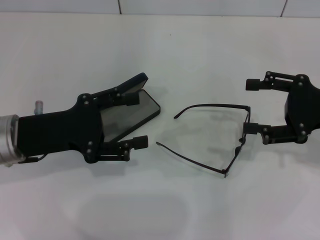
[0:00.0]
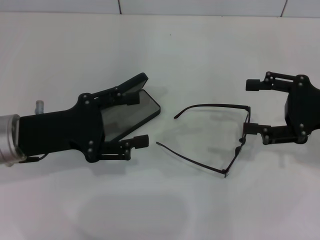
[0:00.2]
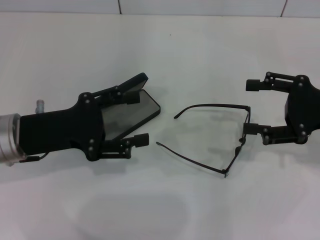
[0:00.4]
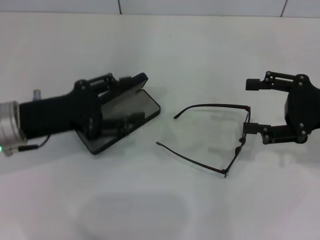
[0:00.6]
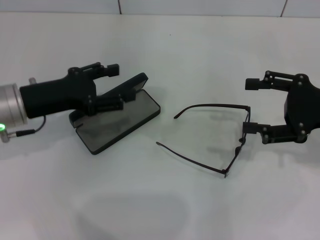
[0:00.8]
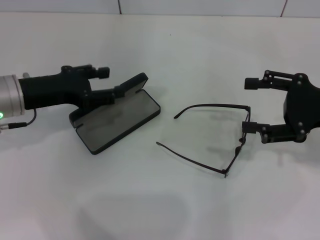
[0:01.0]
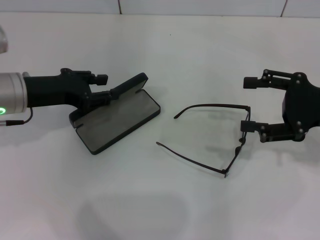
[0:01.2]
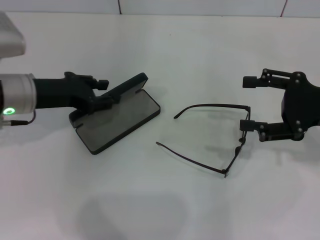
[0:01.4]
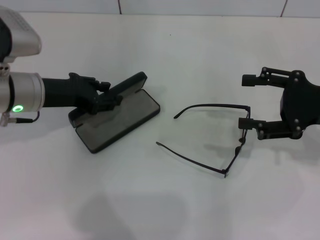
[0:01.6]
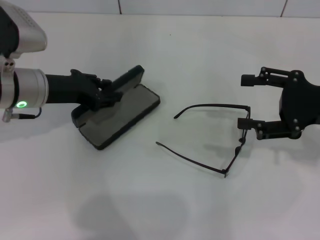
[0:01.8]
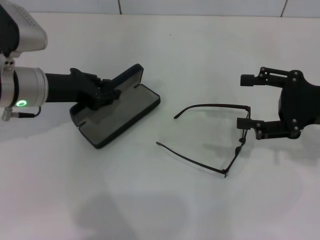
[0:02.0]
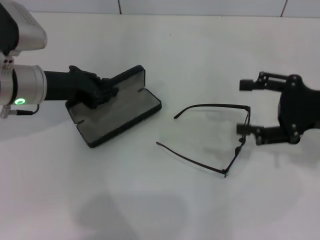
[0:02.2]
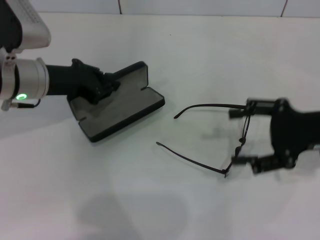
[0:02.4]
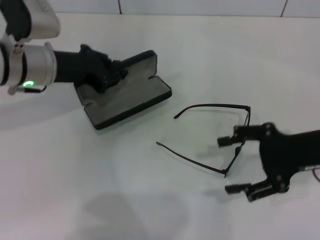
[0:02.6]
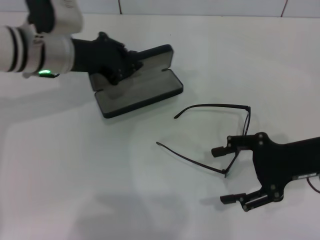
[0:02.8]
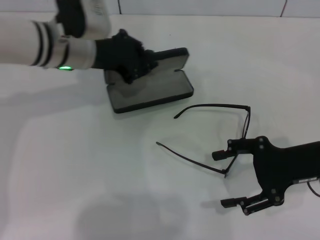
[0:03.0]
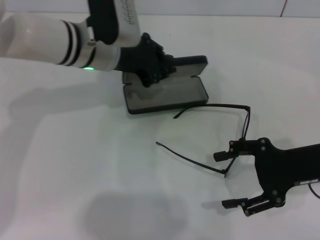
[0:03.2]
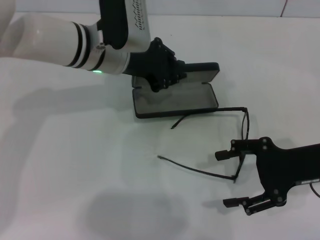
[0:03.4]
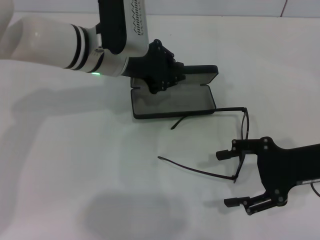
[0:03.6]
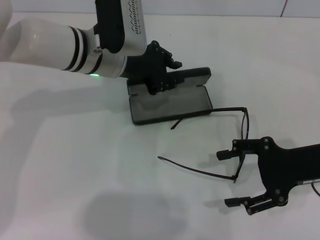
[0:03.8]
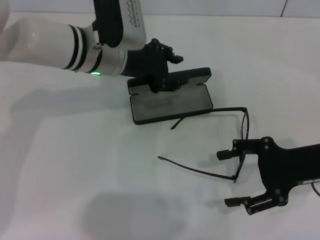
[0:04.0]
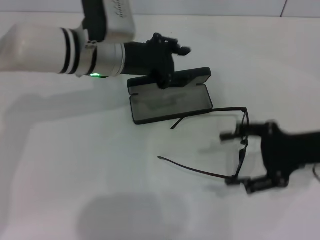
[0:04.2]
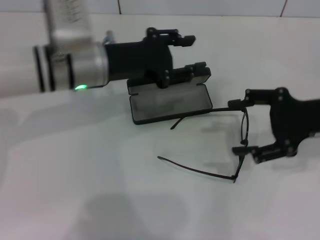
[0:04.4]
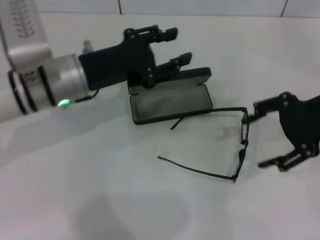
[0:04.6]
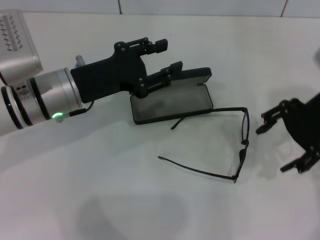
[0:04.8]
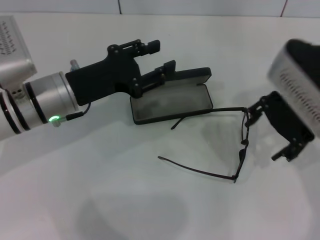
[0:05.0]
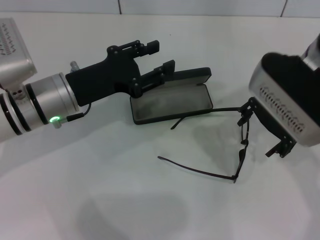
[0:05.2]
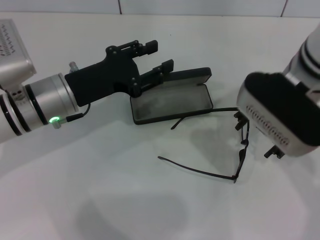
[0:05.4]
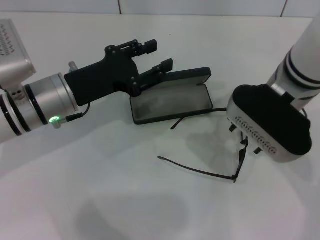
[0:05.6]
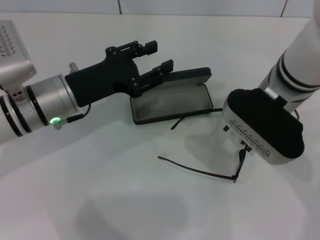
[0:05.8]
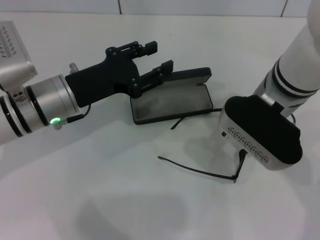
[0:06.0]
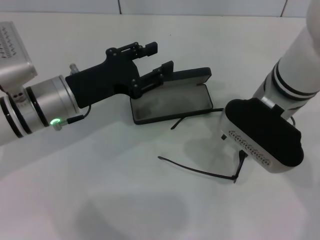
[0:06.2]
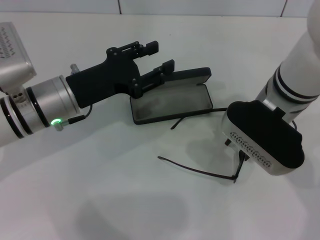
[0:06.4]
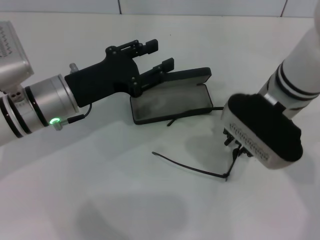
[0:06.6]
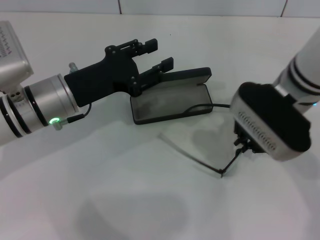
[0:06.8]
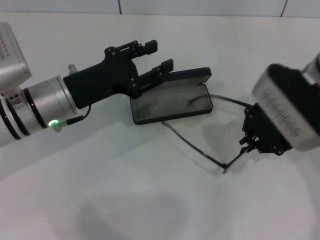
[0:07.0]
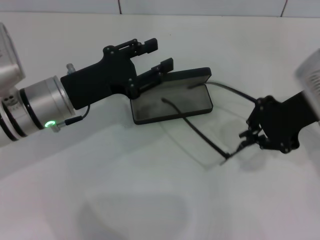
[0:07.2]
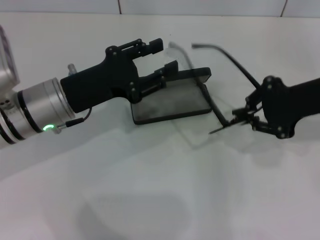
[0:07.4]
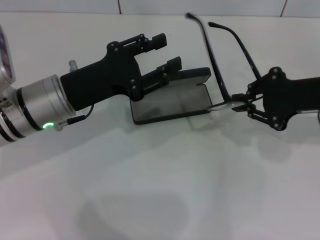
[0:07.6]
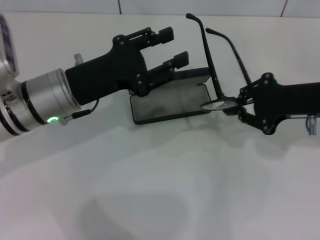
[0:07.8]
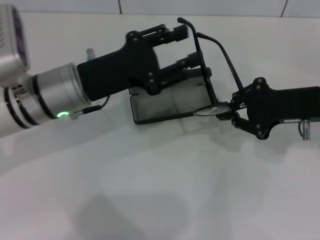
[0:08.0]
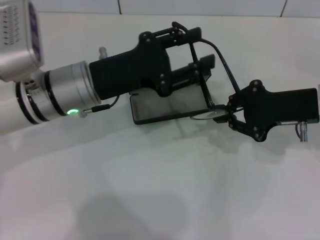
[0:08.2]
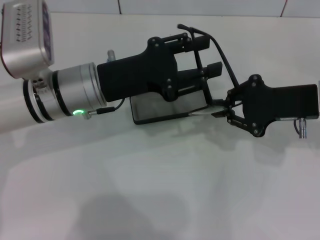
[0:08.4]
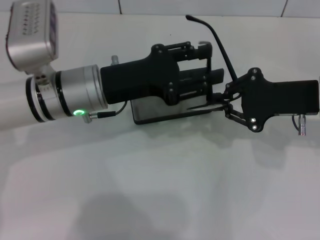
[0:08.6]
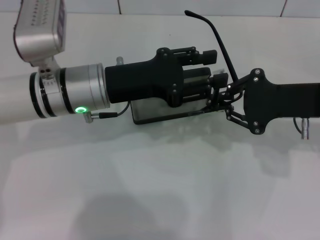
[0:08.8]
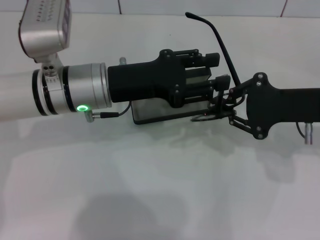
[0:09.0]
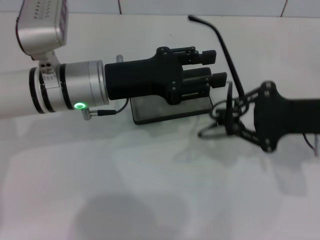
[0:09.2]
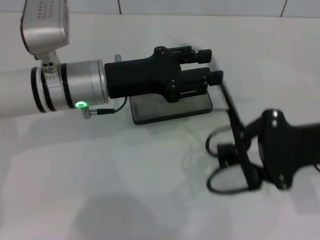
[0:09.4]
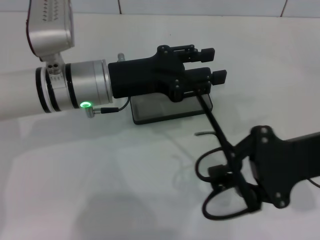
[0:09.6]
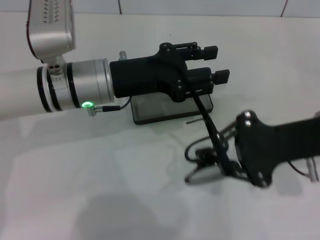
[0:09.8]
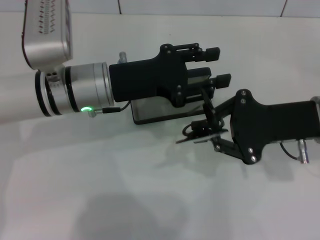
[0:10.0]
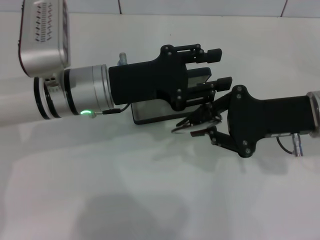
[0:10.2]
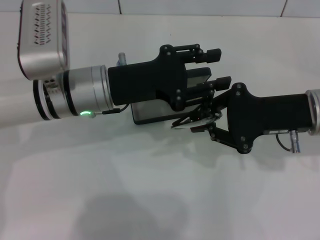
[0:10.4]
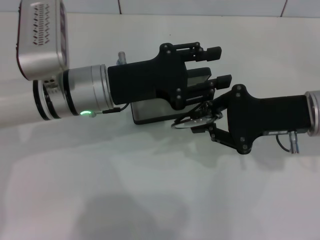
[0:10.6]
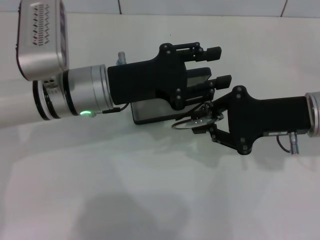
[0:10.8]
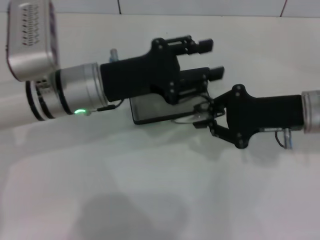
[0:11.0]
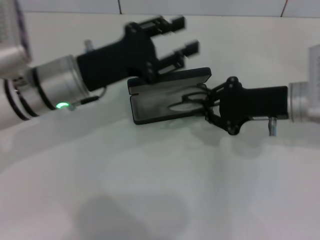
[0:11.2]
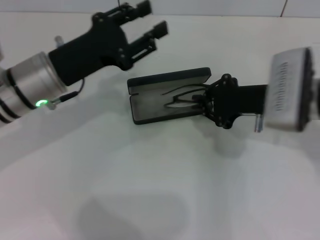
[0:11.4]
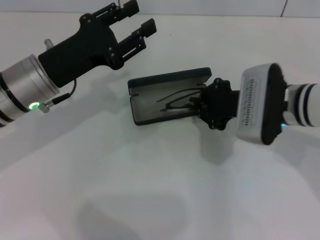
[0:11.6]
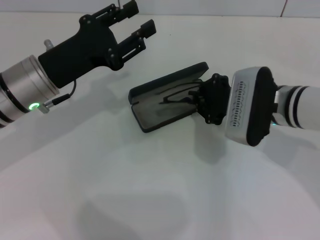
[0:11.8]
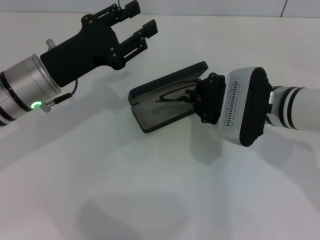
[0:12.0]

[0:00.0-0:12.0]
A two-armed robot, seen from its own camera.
Step, 0:00.0 to 0:01.6: Grab the glasses case with your left hand.
Step, 0:02.0 to 0:03.6: Place the glasses case in the center of the table with your left hand.
Step, 0:03.8 to 0:06.6: Grab the eyeglass frame with your right hand.
Step, 0:06.8 to 0:10.2: Fold the frame with your left hand.
0:00.0 to 0:01.6: The left gripper is displaced forward by about 10 cm, and closes up.
0:01.6 to 0:03.0: The right gripper shifts by approximately 5 cm, while the left gripper heads to the right and forward, covering roughly 10 cm, and closes its fingers.
0:03.0 to 0:04.4: The right gripper ends up some 5 cm from where it was, while the left gripper opens up.
0:04.4 to 0:06.0: The right gripper goes approximately 15 cm to the left, while the left gripper changes place by roughly 5 cm.
0:06.0 to 0:07.6: The right gripper is displaced to the right by roughly 15 cm, and closes.
0:07.6 to 0:09.0: The left gripper moves approximately 5 cm.
0:10.4 to 0:12.0: The grippers both shift to the left by about 5 cm.

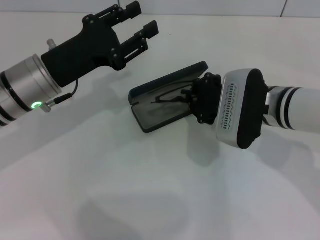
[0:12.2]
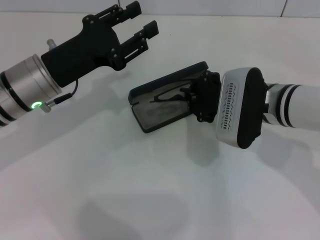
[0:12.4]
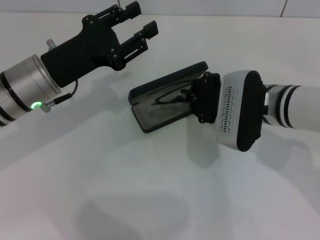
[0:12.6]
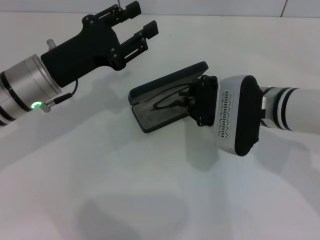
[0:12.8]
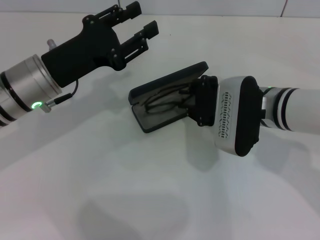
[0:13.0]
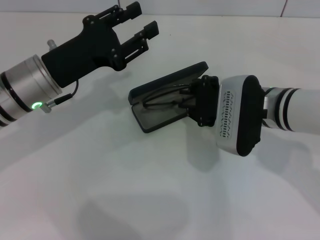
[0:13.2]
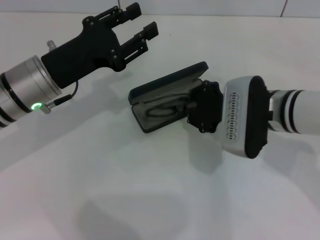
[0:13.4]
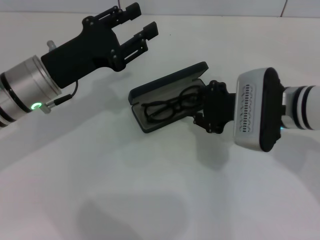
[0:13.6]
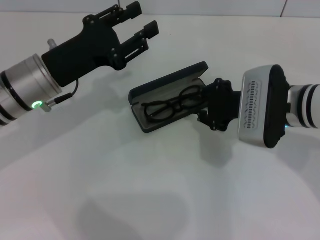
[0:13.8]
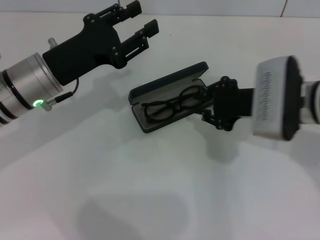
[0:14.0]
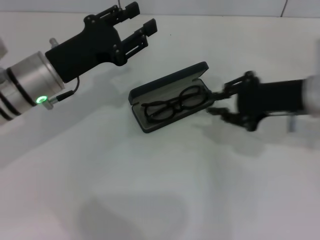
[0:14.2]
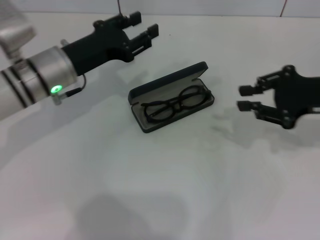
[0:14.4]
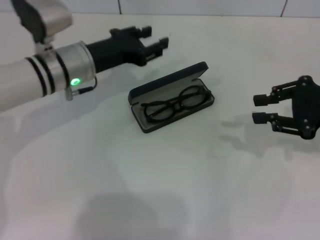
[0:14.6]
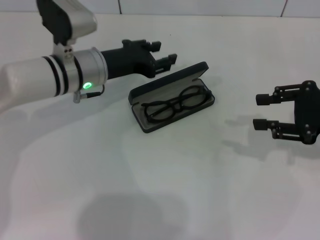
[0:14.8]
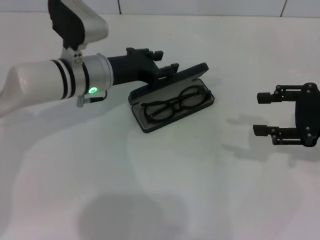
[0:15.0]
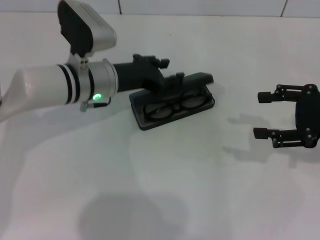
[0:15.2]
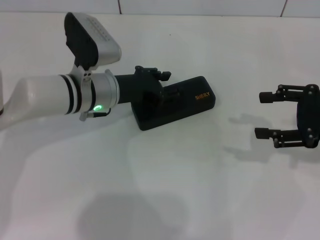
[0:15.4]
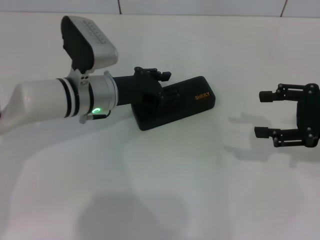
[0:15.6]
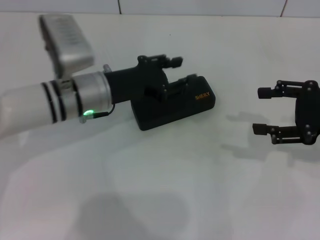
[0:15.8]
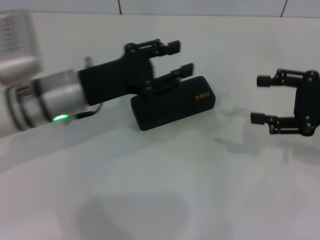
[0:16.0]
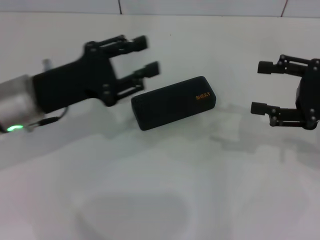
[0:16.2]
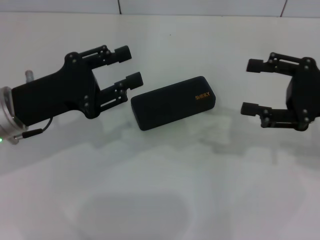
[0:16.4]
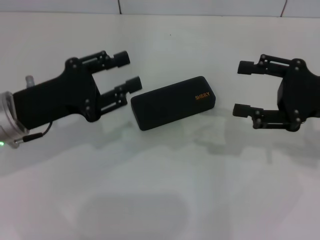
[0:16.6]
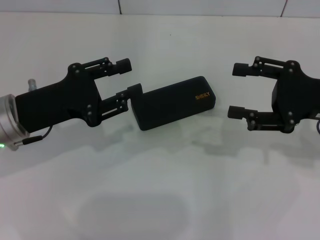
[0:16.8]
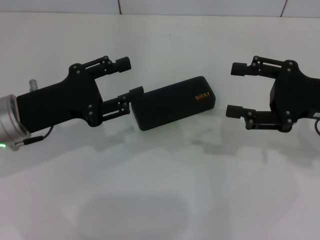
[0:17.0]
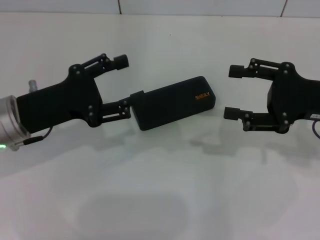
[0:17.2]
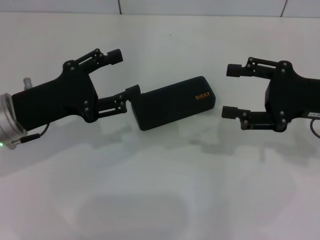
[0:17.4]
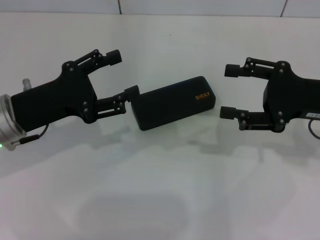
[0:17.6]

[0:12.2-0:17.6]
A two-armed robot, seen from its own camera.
Step, 0:13.6 to 0:15.2: Close the glasses case with your left hand.
0:12.2 to 0:13.6: The grippers make only small movements.
0:13.6 to 0:15.0: The left gripper heads forward and to the right, covering roughly 10 cm, while the right gripper heads to the right, covering approximately 15 cm, and opens its fingers.
0:15.0 to 0:16.2: The left gripper moves backward and to the left, some 10 cm, while the right gripper opens its fingers.
0:16.2 to 0:17.6: The left gripper opens its fingers.

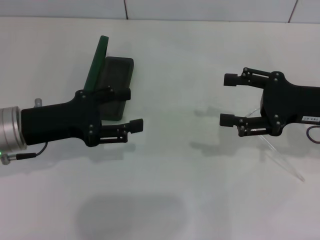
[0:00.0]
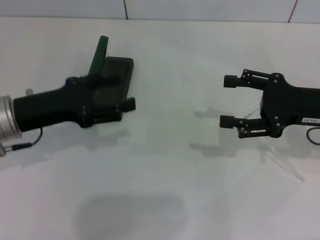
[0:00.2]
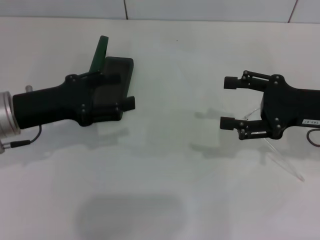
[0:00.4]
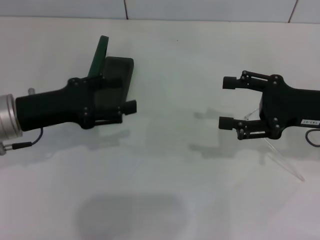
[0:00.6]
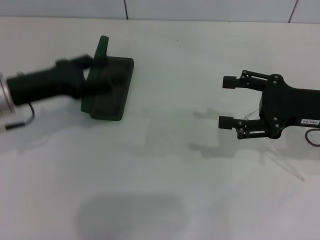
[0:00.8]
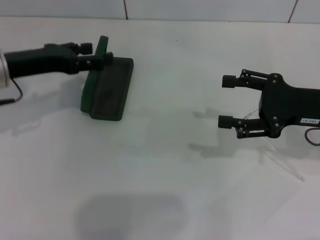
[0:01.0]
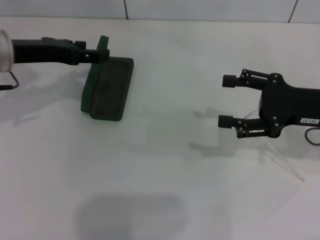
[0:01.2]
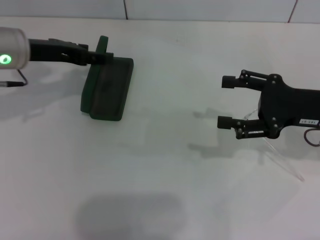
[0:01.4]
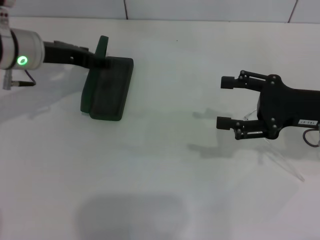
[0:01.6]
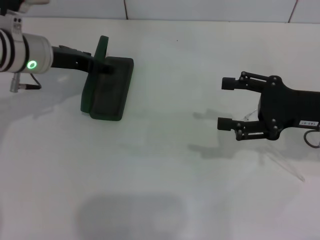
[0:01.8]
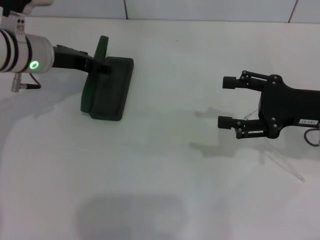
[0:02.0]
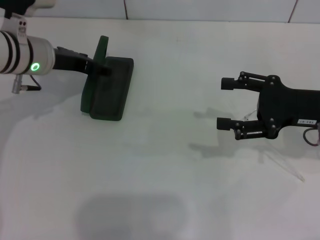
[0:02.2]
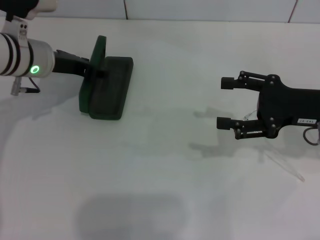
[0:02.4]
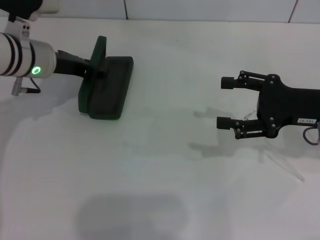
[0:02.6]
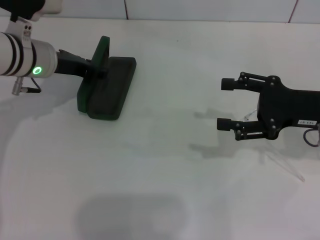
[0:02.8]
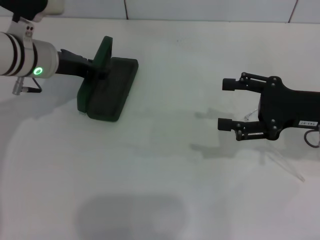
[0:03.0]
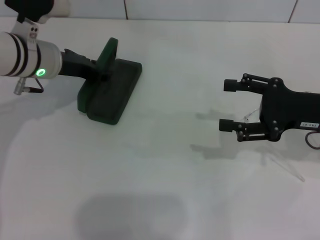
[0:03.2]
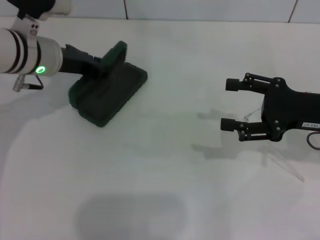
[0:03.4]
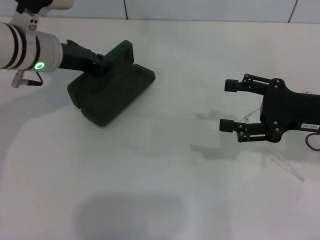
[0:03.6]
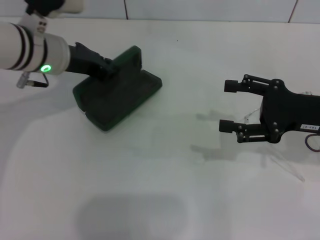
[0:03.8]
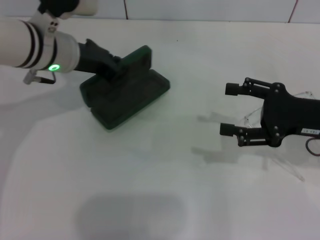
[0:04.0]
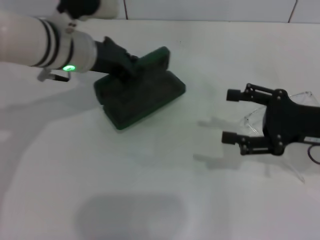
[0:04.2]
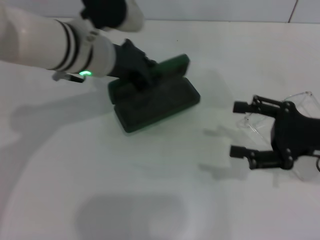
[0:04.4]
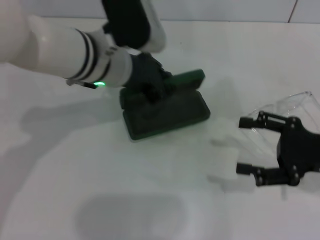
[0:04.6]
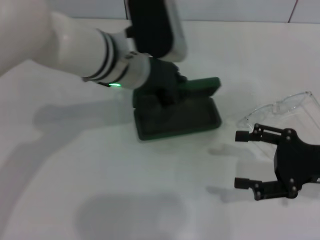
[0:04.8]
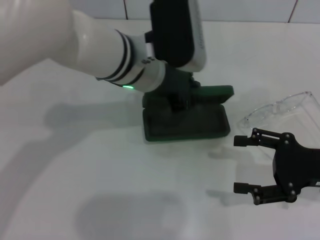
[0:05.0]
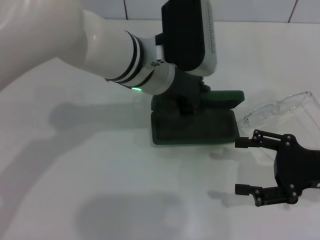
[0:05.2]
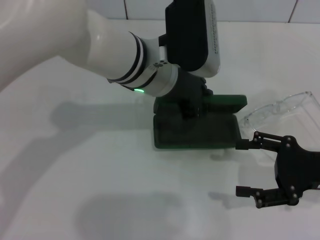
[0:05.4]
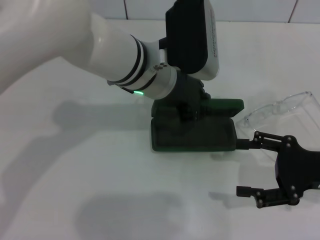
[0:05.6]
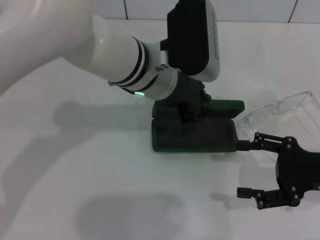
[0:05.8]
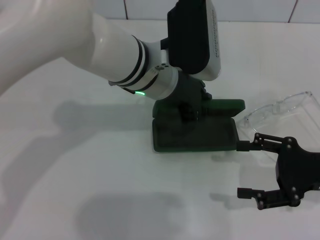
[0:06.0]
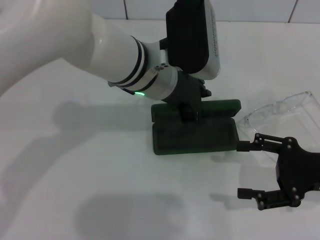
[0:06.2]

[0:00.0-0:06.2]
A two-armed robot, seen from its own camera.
Step, 0:00.0 to 0:02.8: Grab the glasses case with your left hand.
0:00.0 to 0:01.6: The left gripper travels forward by approximately 10 cm.
0:01.6 to 0:03.2: The left gripper closes up.
0:03.2 to 0:04.6: The left gripper goes roughly 10 cm to the right; the right gripper shifts by roughly 5 cm.
0:04.6 to 0:06.2: The left gripper heads to the right, covering some 5 cm.
